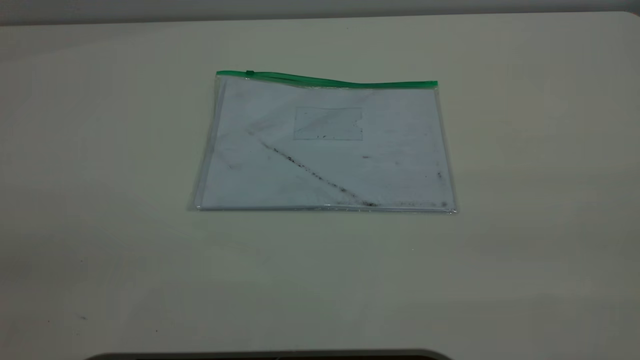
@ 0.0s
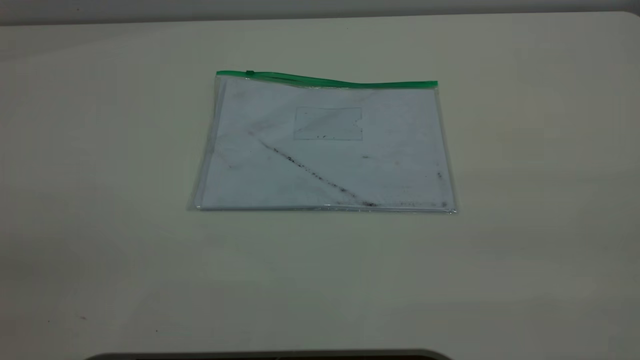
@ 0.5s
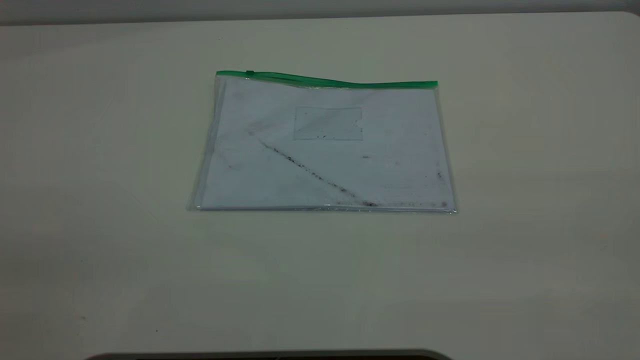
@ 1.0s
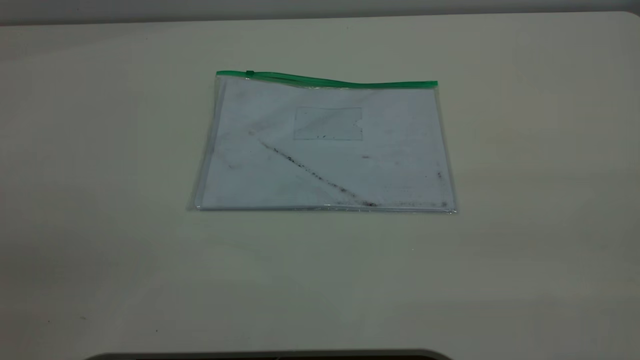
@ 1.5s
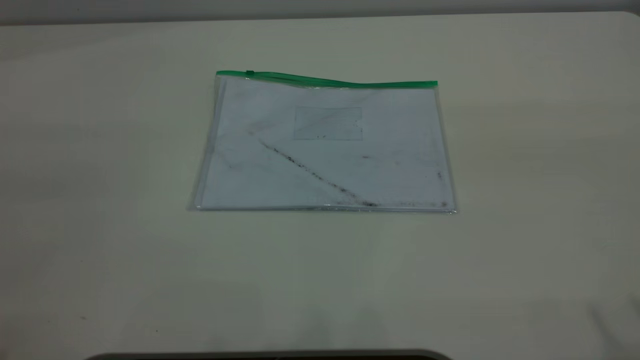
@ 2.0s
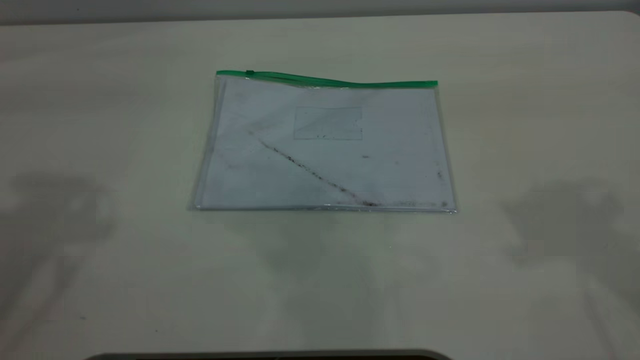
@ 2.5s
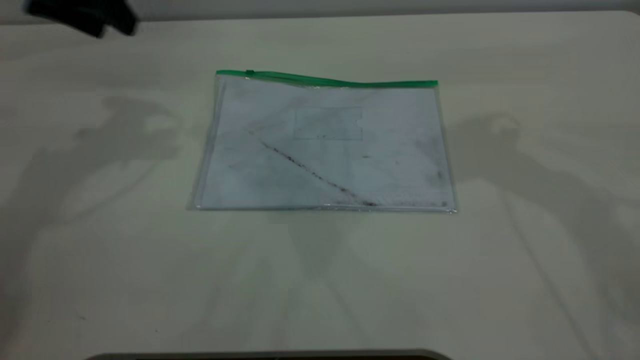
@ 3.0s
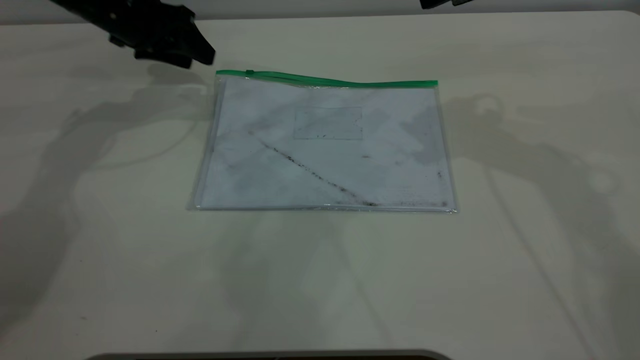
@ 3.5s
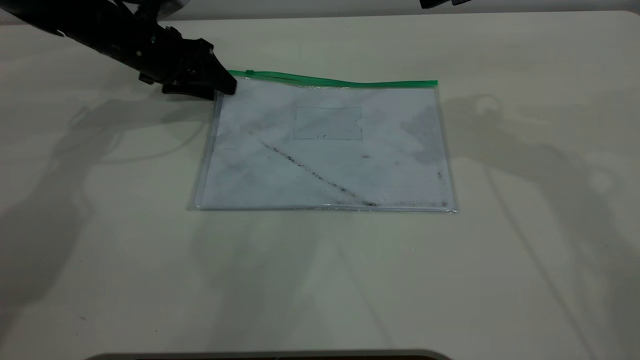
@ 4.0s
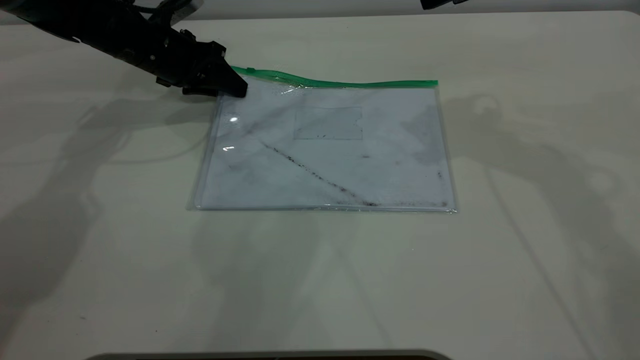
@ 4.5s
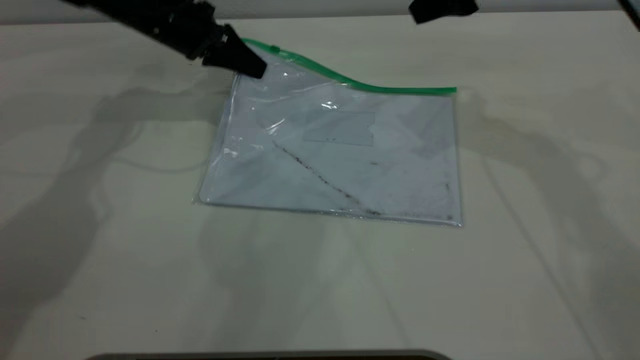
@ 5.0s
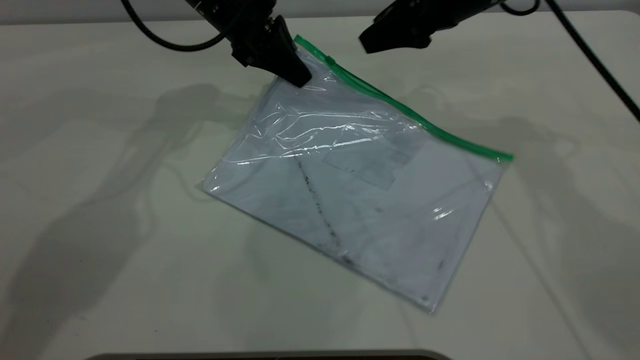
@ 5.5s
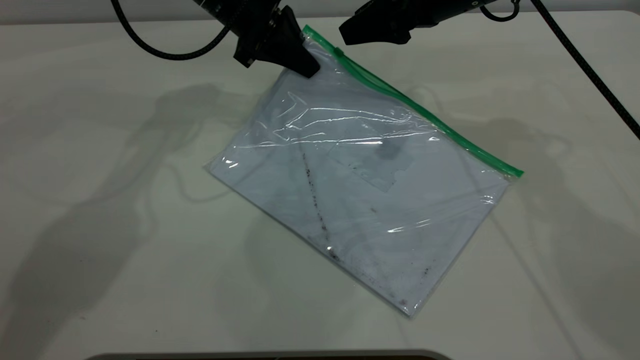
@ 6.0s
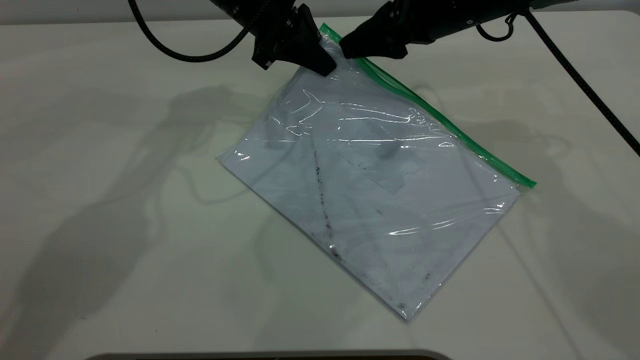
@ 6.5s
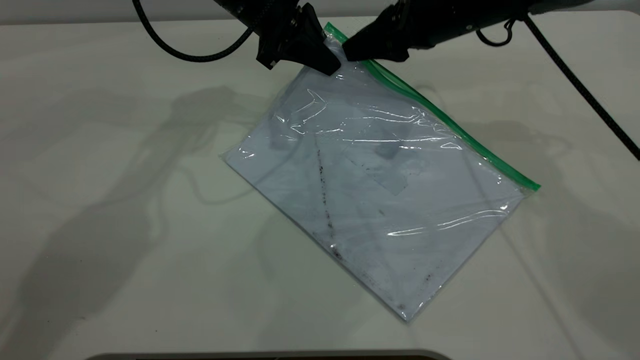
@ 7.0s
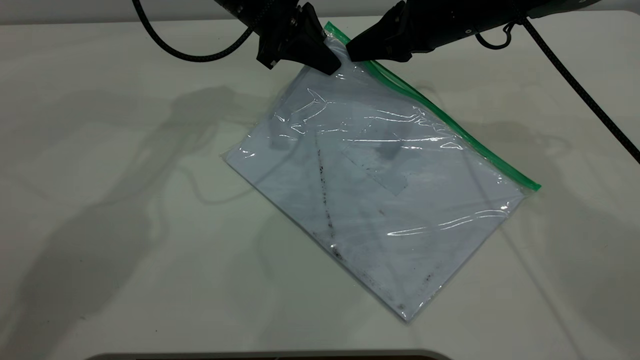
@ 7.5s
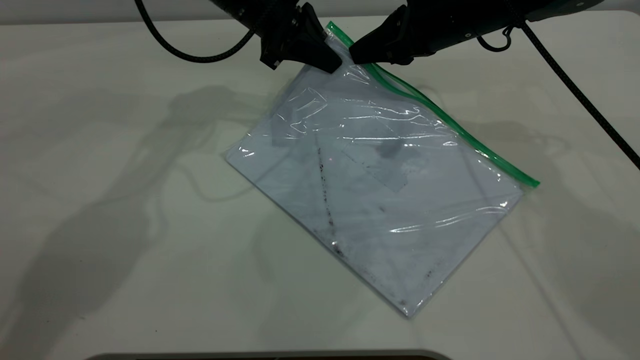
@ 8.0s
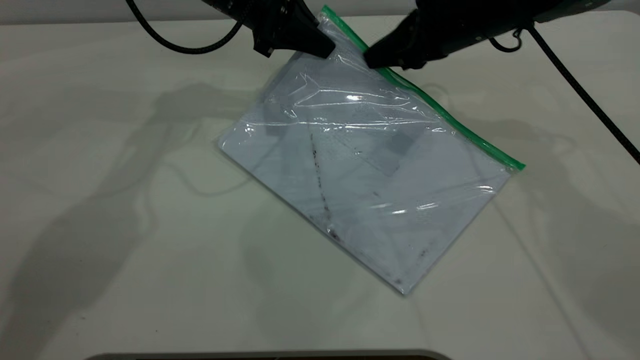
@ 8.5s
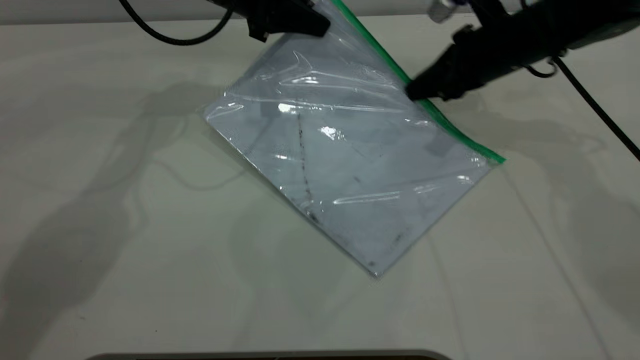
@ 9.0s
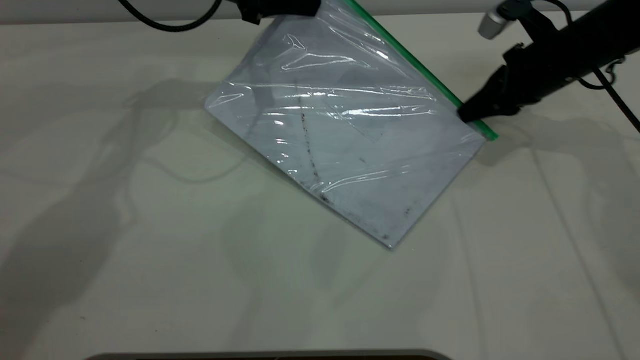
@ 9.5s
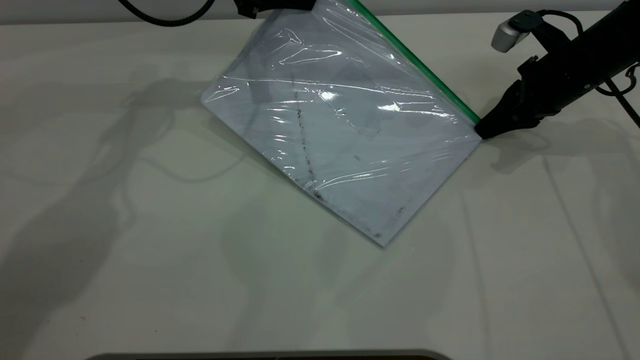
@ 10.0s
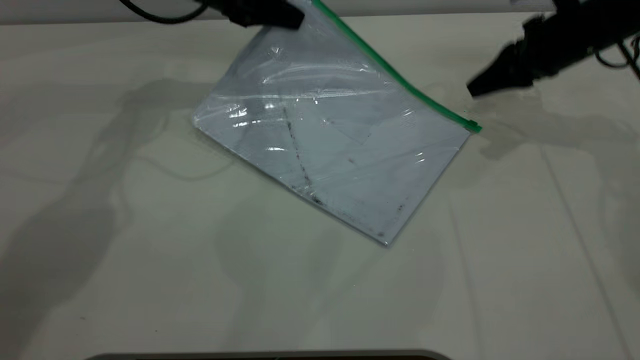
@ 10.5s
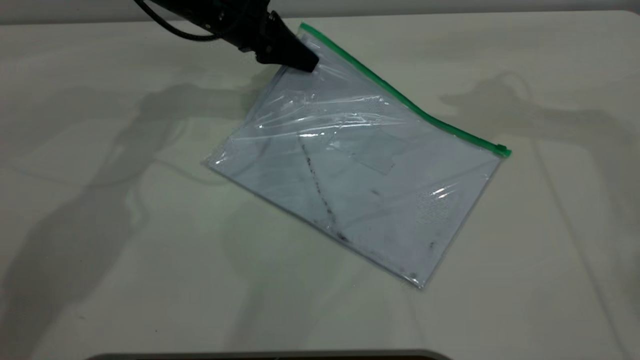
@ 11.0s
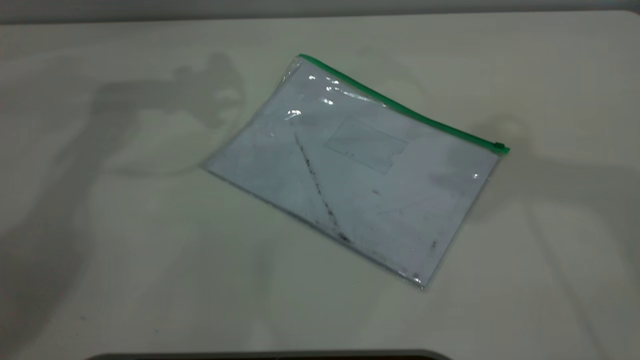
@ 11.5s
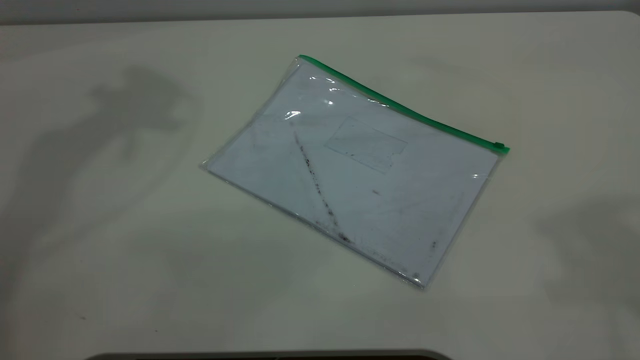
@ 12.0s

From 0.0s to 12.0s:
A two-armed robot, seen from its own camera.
Step, from 0.0s to 5.0s: Pick up the transparent plastic bag with the left gripper.
Step, from 5.5s to 10.0s: Pulling up the zipper on the transparent plastic bag with the right gripper to close it.
Step, from 10.5s to 11.0s: Place the transparent plastic bag.
From 2.0s to 4.0s: The left gripper shifts roughly 50 cm forward and downward.
From 4.0s to 6.0s: The right gripper heads downward and to the left, covering about 10 cm; the left gripper is displaced to the right and upward by approximately 15 cm, and closes.
From 6.0s to 8.0s: The right gripper closes up.
From 8.0s to 10.0s: The left gripper shifts by about 5 cm. The right gripper moves to the right and downward, some 15 cm.
From 10.0s to 12.0s: The right gripper heads upward and backward, covering some 50 cm, and opens its fingers. The left gripper travels upward by approximately 35 cm, and opens up.

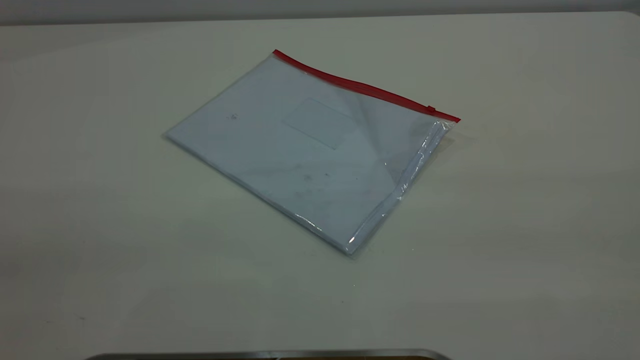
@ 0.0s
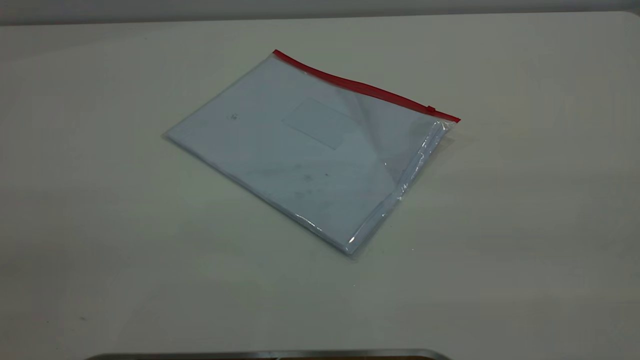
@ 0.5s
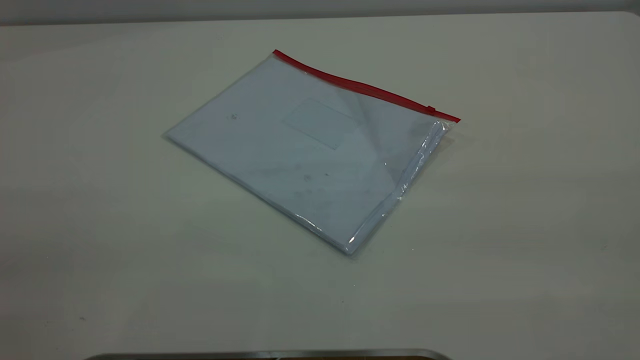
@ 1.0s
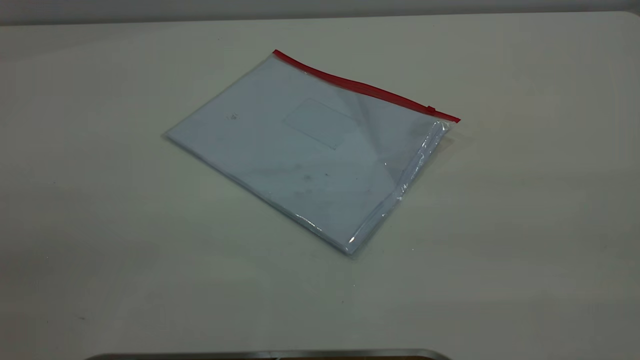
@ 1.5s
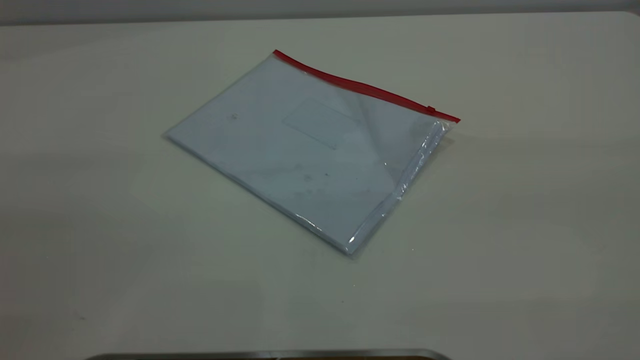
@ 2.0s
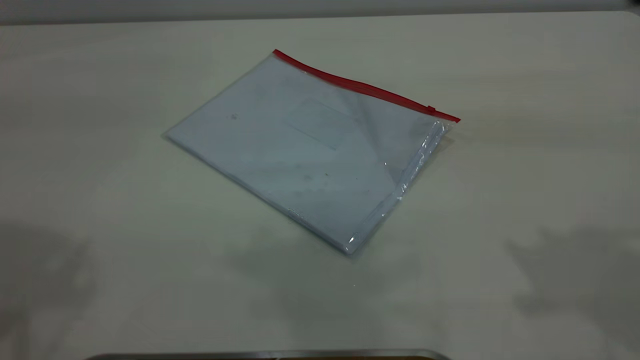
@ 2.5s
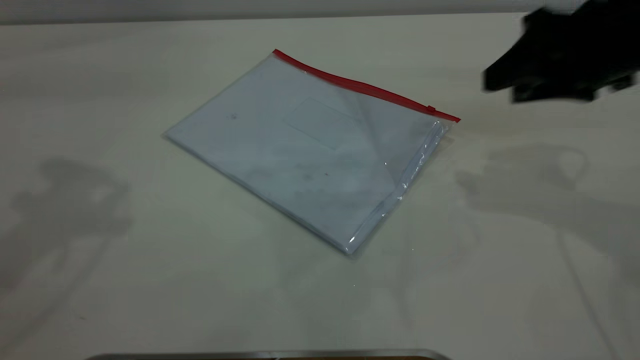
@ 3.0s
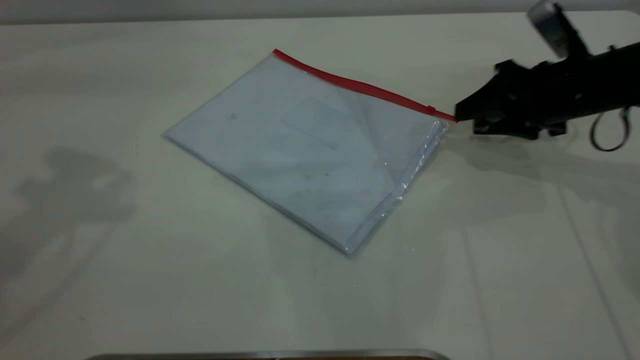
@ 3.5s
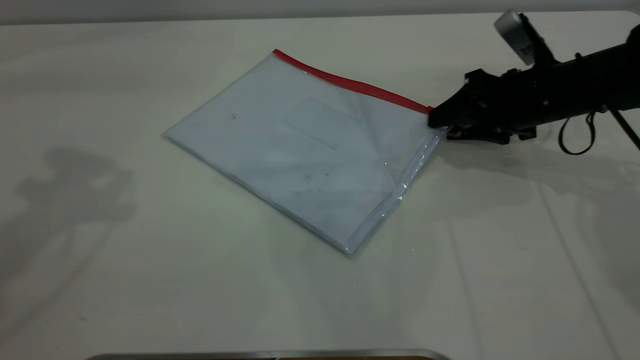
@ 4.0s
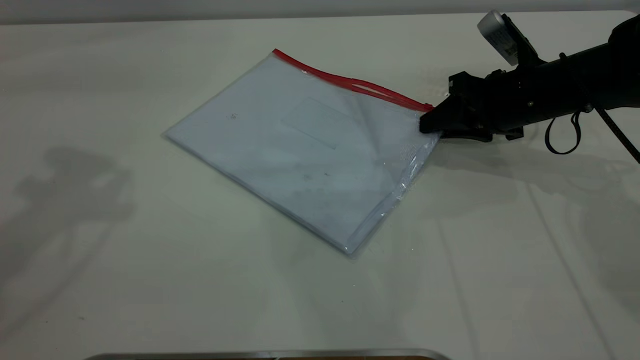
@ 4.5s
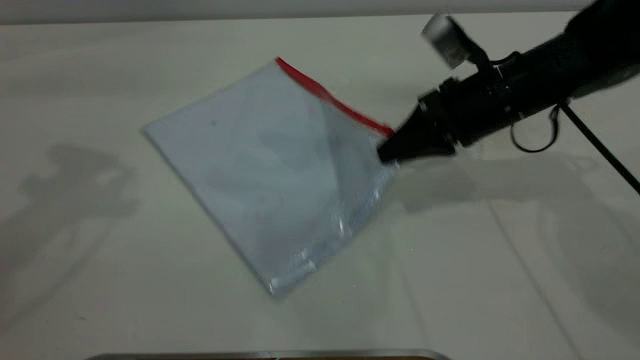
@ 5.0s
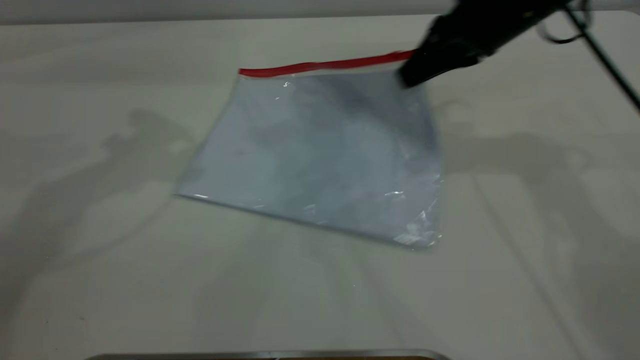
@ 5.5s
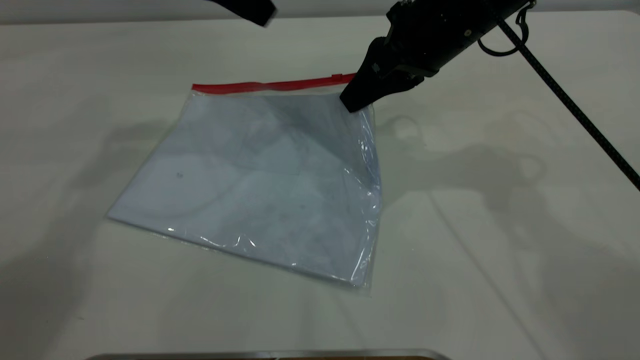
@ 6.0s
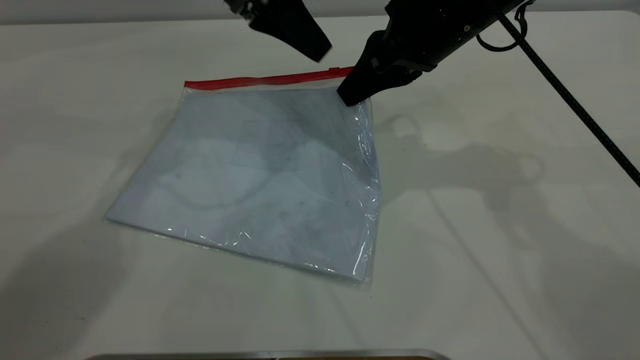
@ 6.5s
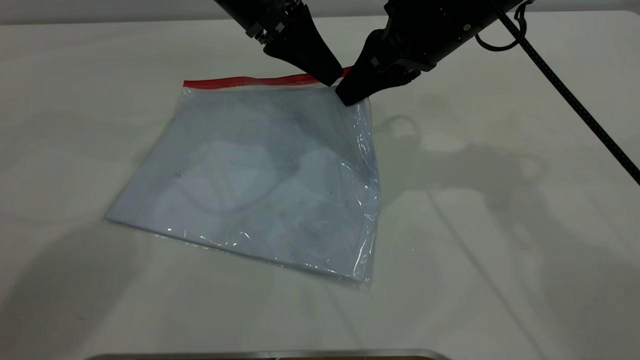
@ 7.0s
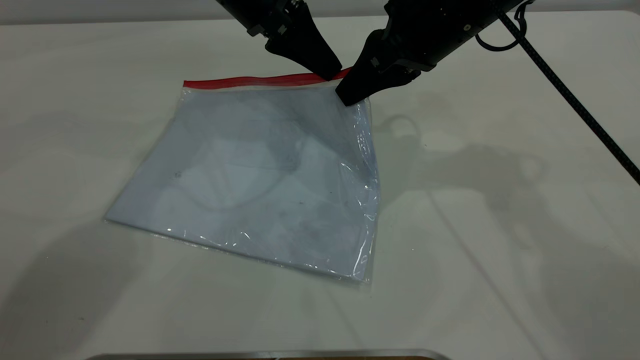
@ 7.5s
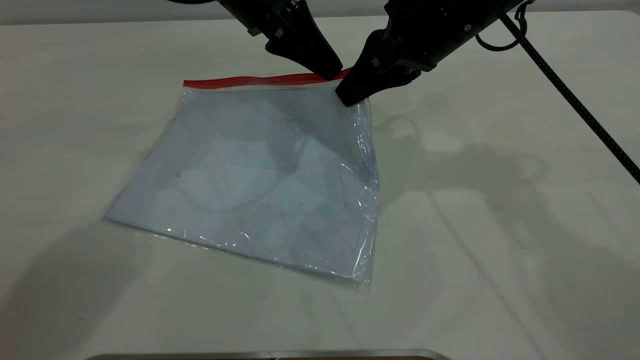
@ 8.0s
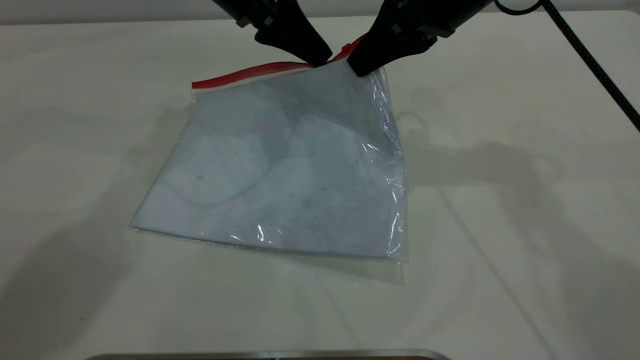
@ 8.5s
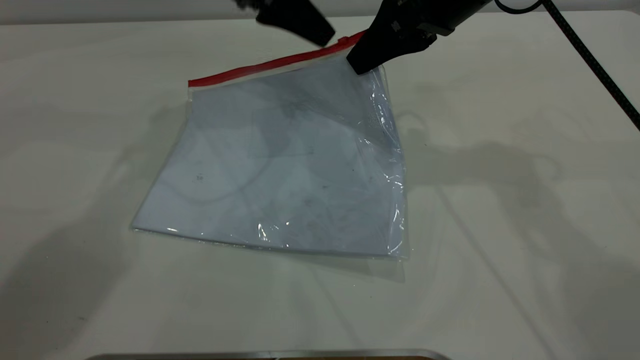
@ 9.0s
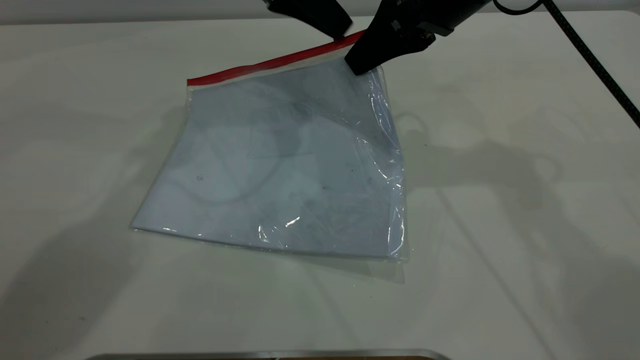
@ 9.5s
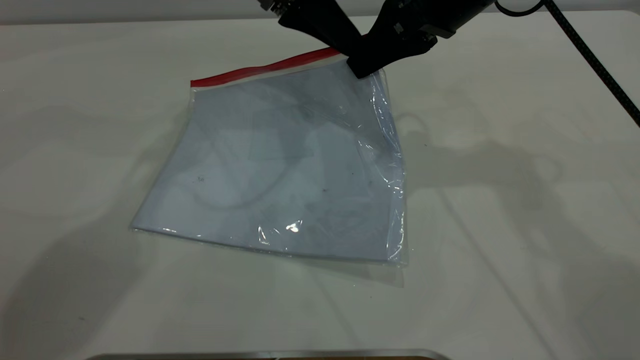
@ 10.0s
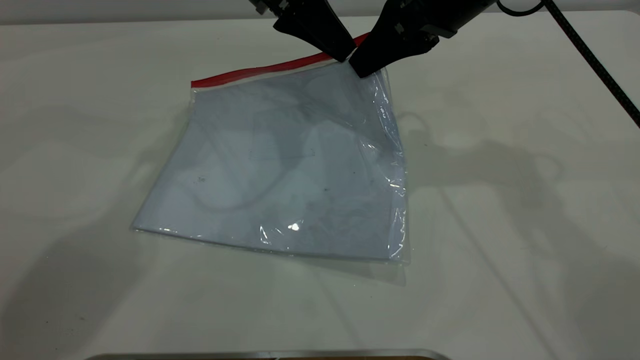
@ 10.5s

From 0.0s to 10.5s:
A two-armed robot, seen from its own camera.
Step, from 0.0s to 5.5s: Pick up the transparent plastic bag with the right gripper.
From 2.0s to 4.0s: The right gripper shifts about 50 cm forward and downward.
From 4.0s to 6.5s: The right gripper shifts roughly 15 cm to the left and upward, and closes up, while the left gripper heads to the right, downward and forward, covering approximately 25 cm.
From 6.5s to 8.5s: The left gripper closes its fingers.
From 8.5s to 10.5s: The left gripper opens, then closes again.
